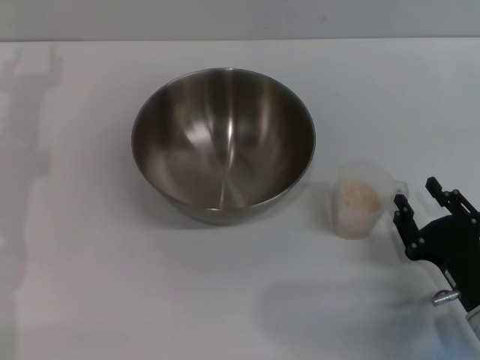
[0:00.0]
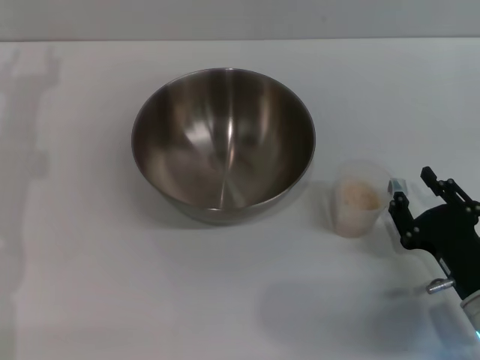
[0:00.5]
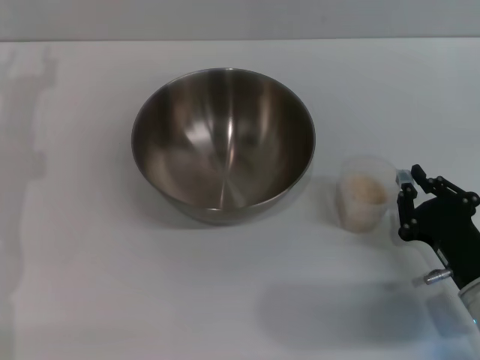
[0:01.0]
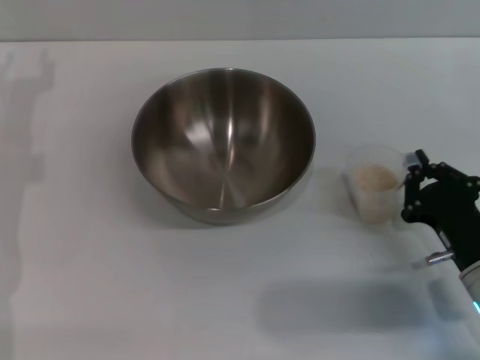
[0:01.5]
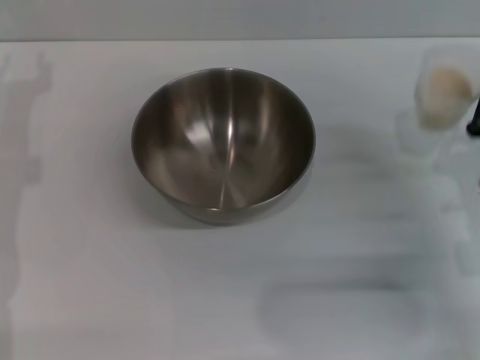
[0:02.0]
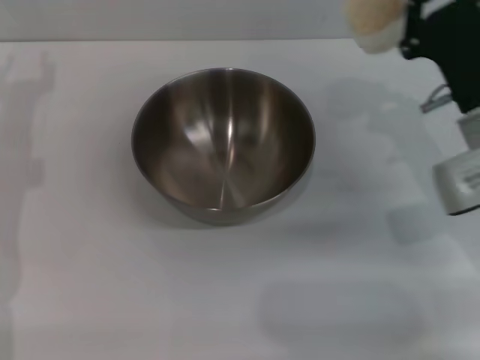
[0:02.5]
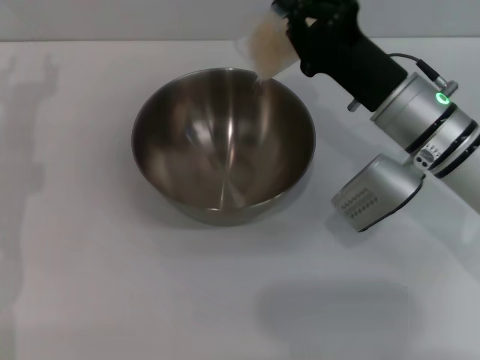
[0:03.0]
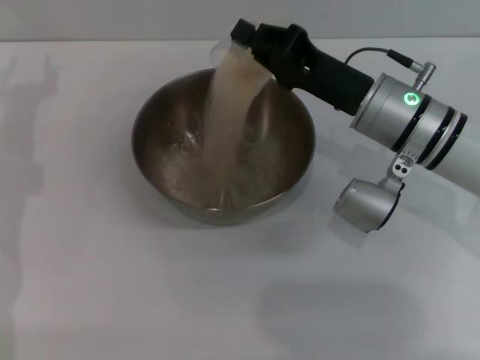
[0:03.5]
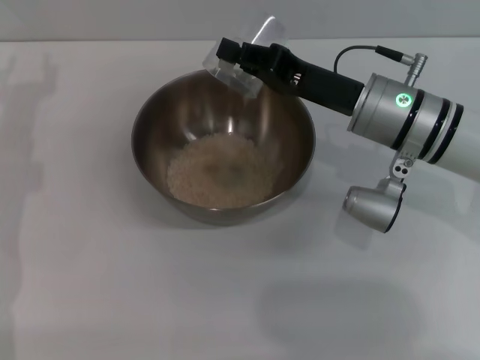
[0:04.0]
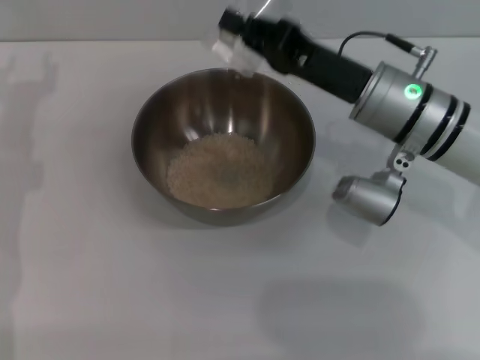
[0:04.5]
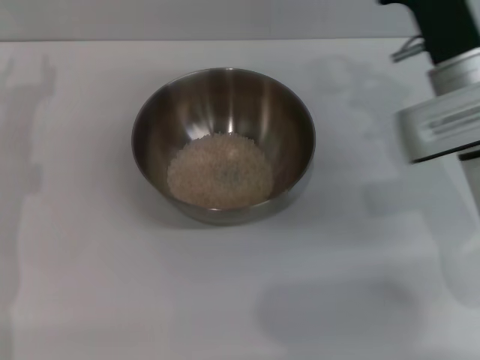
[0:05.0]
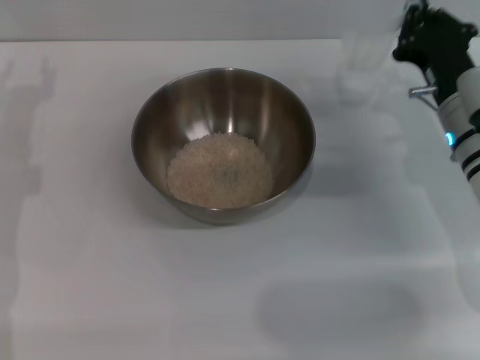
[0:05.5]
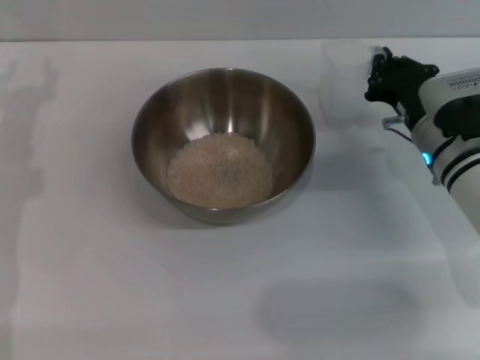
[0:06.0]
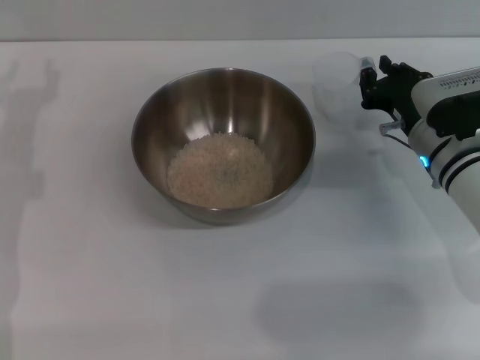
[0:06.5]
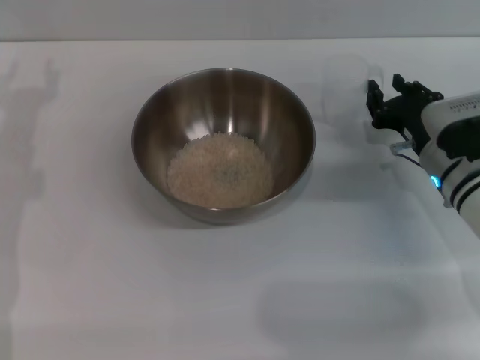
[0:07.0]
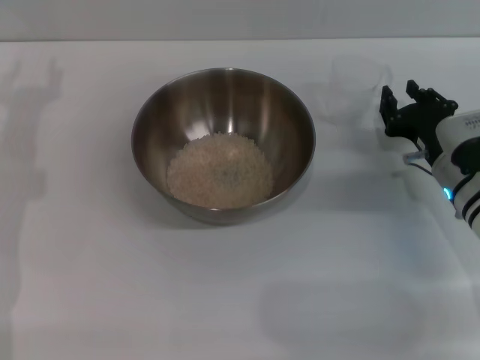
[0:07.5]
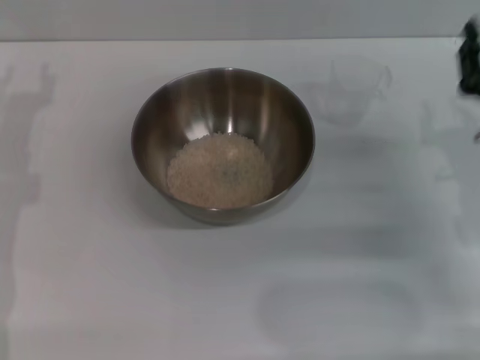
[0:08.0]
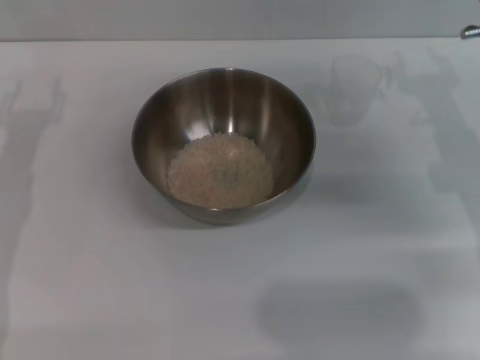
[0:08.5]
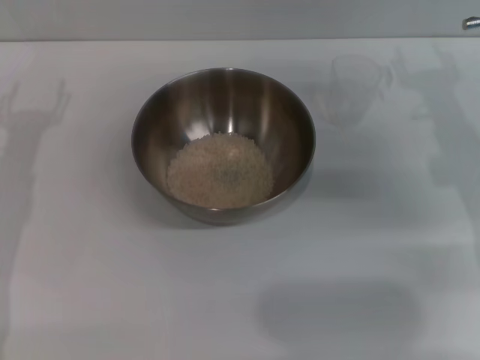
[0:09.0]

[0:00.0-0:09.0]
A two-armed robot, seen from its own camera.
Task of the whole recording: Place the bowl in the middle of the table with one hand and pour the rice from the grain cup into it with the other hand.
Step, 0:00.0 to 0:02.0: Pick up the cup with rice in it with the right gripper.
Step, 0:02.5 to 0:04.5: Pour the rice from the cup into the bowl with the right gripper.
Step, 0:05.0 to 0:07.5: Place the cup on the table with the right gripper.
0:00.0 to 0:02.0: The right gripper shifts roughly 10 cm forward and upward, and closes.
0:02.0 to 0:04.5: The right gripper shifts roughly 15 cm to the left, forward and upward.
0:04.5 to 0:07.0: The right gripper goes approximately 10 cm downward and to the right, and opens its fingers.
0:07.0 to 0:09.0: The right gripper travels upward by some 10 cm, and opens up.

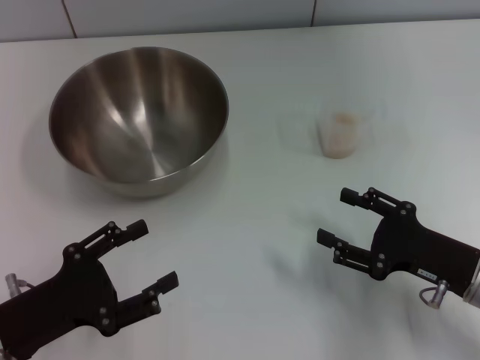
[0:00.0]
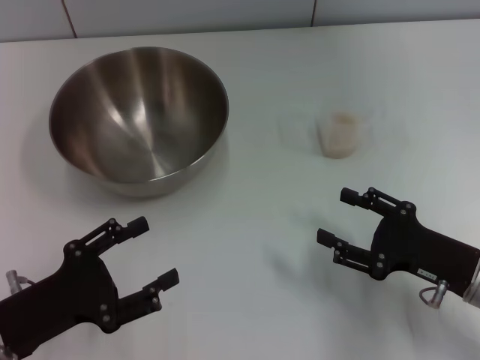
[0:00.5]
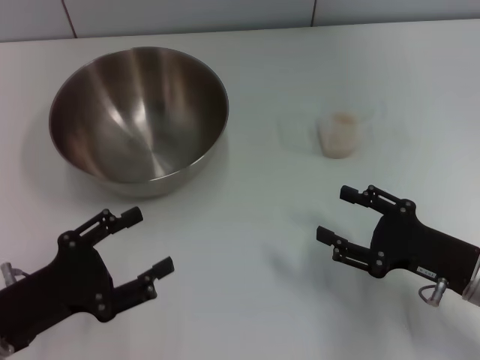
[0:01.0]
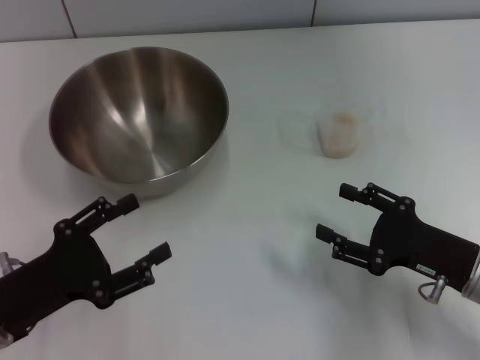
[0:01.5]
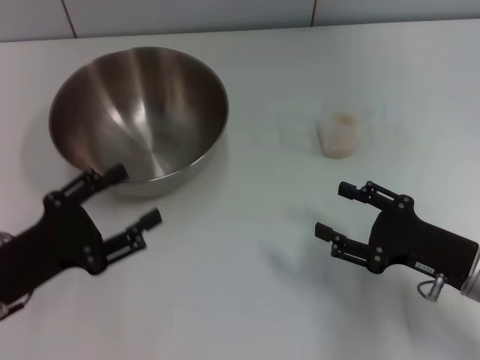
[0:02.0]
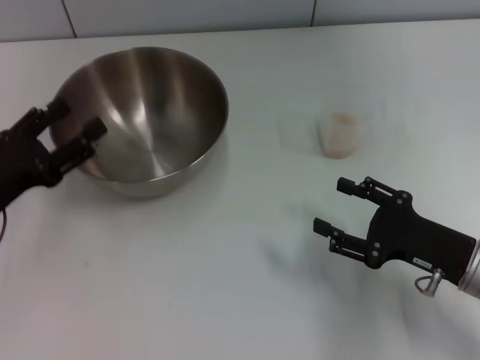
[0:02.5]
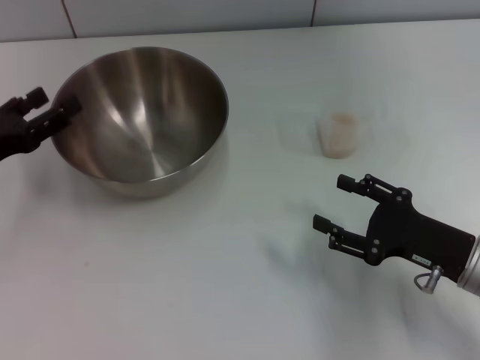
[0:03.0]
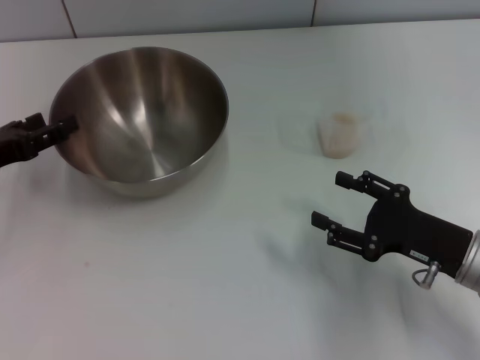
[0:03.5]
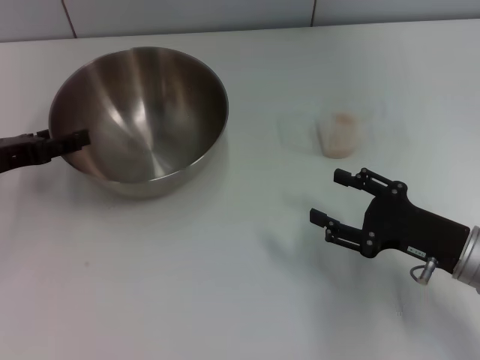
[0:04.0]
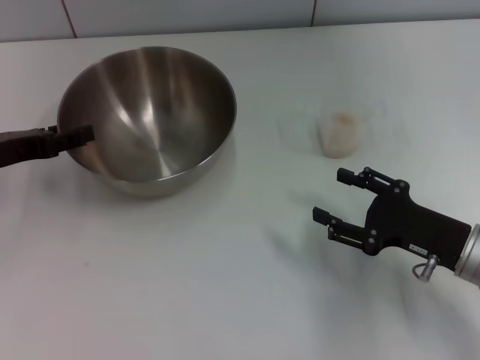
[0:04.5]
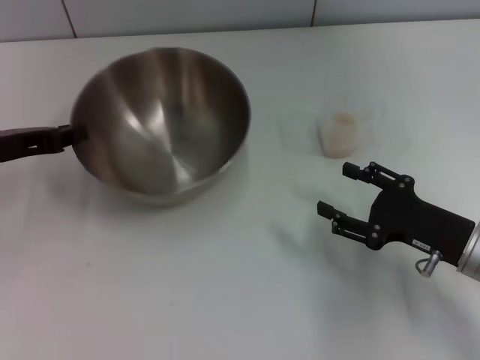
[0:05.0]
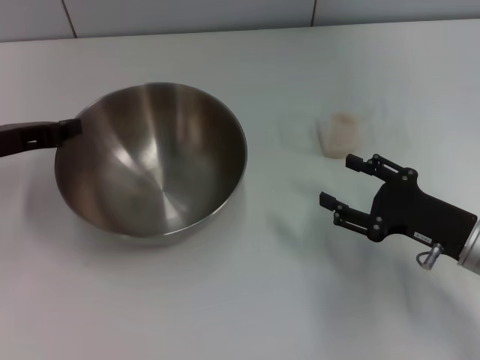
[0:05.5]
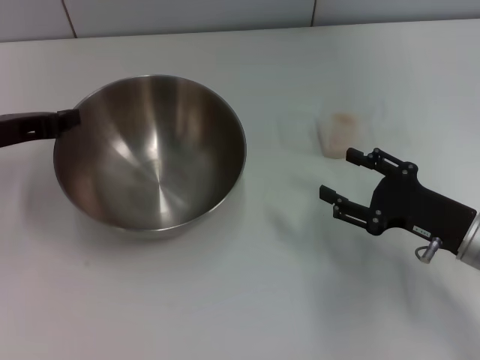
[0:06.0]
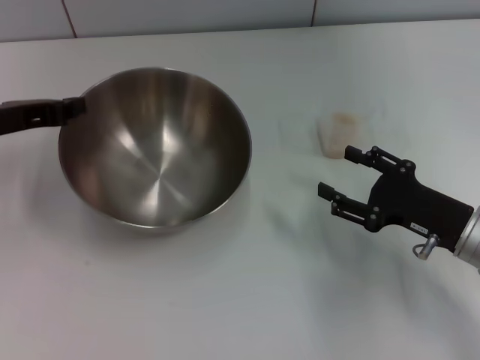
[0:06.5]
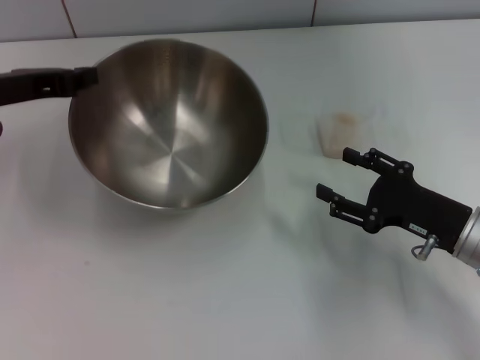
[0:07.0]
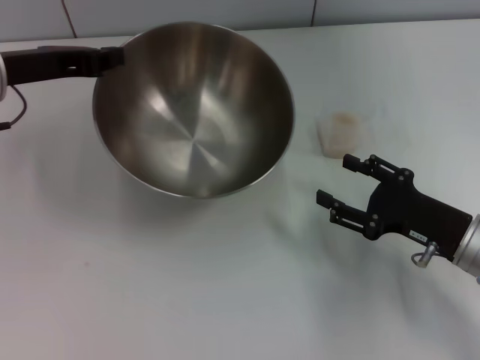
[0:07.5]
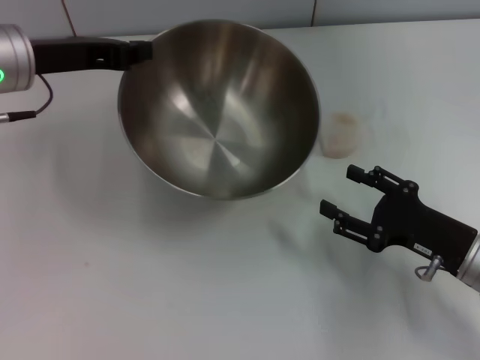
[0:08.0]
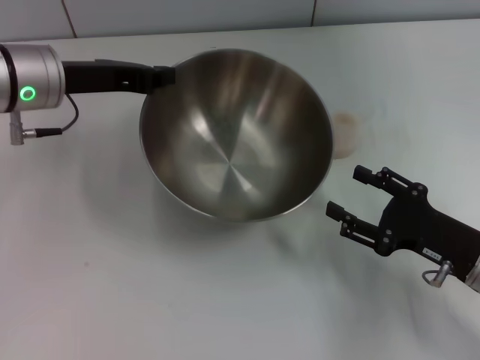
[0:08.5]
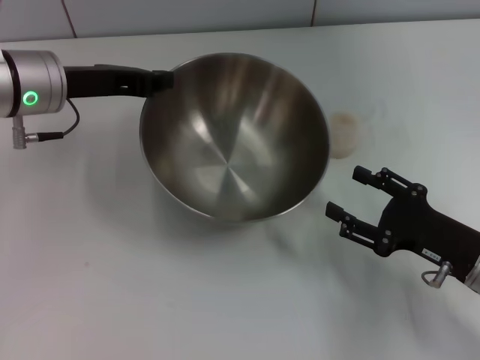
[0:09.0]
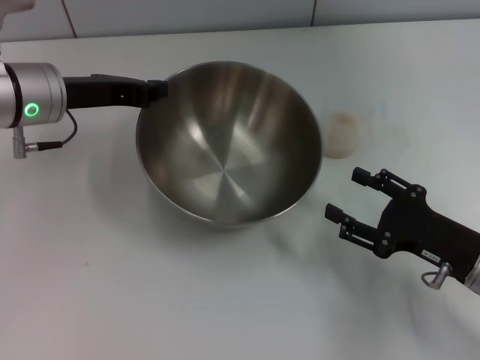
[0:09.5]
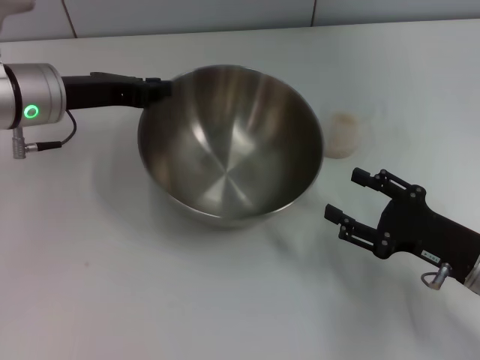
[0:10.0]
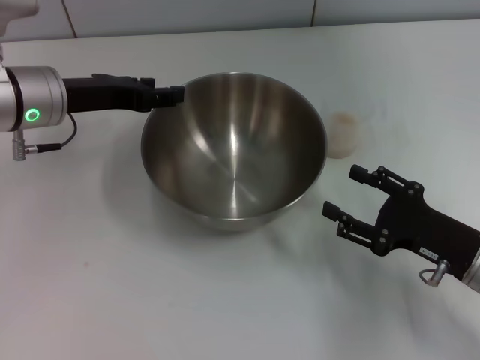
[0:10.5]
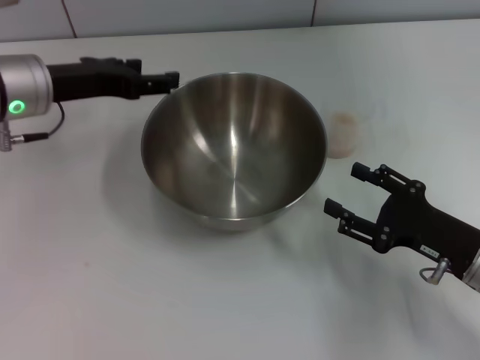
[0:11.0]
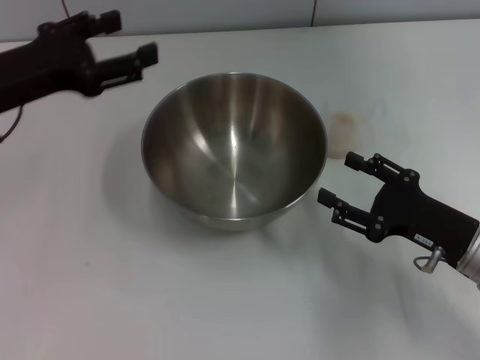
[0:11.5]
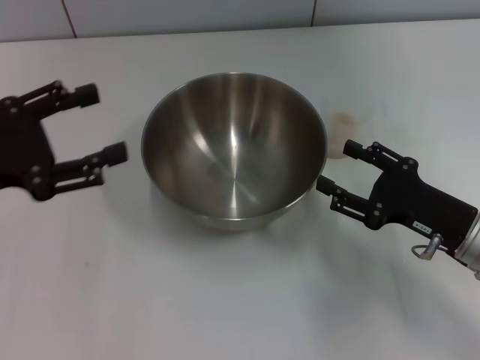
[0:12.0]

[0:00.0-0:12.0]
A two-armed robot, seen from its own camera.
Task of the whole recording: Place the bowl in the middle of the table with one hand and pour the rice from the grain cup into it with the other hand.
Step, 0:00.0 to 0:05.0: Pick up the bowl with the left gripper.
Step, 0:06.0 to 0:11.0: Place the bowl in the center of view with the left gripper.
0:00.0 to 0:02.0: The grippers make only small movements.
0:02.0 to 0:04.0: The left gripper heads forward, covering some 10 cm.
0:04.0 to 0:06.0: The left gripper closes.
0:06.0 to 0:08.0: The left gripper is displaced to the right and upward by about 10 cm.
0:10.0 to 0:12.0: The left gripper shifts roughly 15 cm backward and to the left, and opens up.

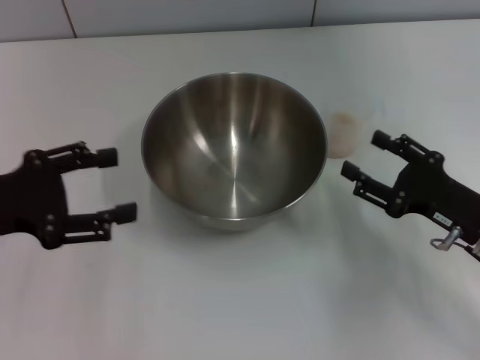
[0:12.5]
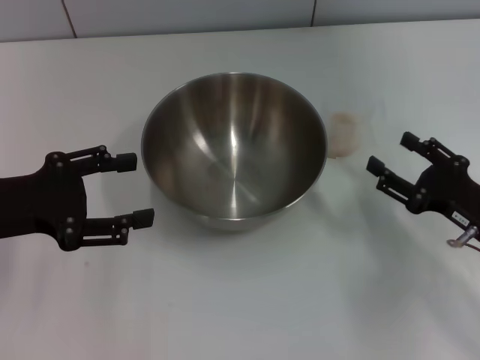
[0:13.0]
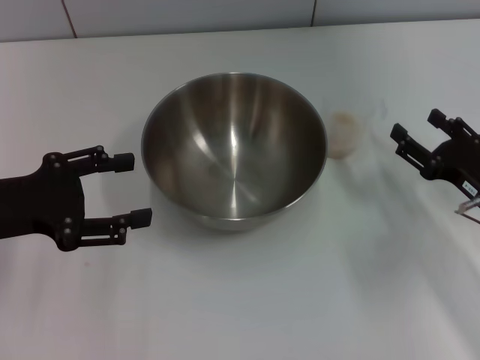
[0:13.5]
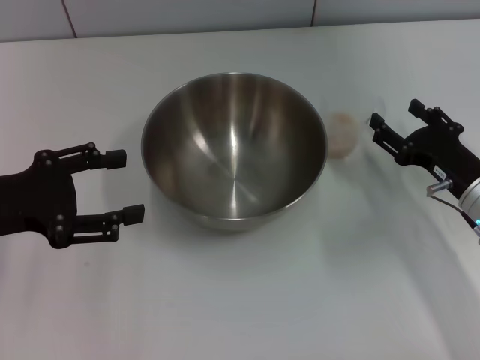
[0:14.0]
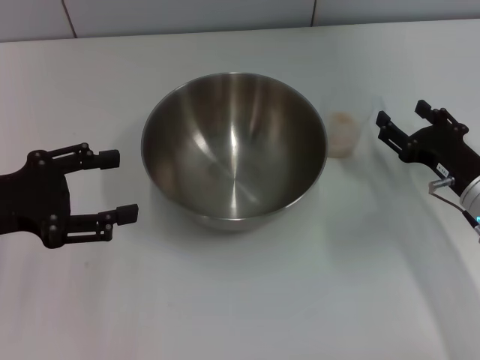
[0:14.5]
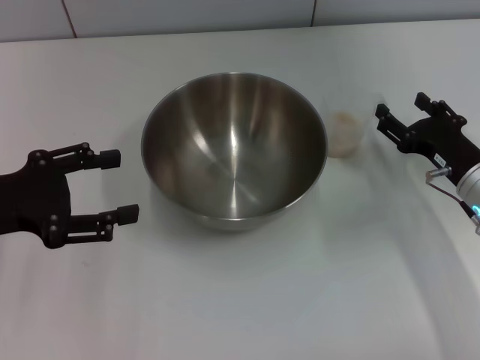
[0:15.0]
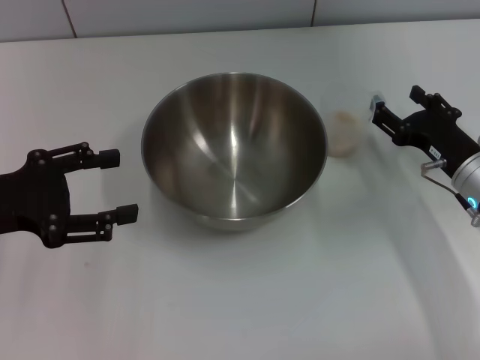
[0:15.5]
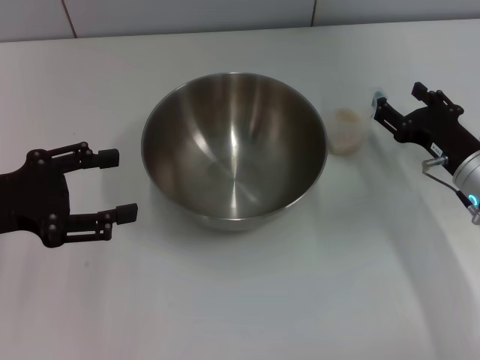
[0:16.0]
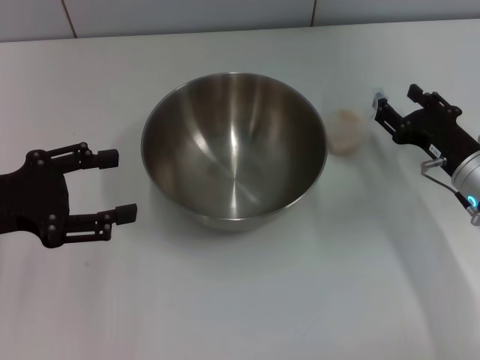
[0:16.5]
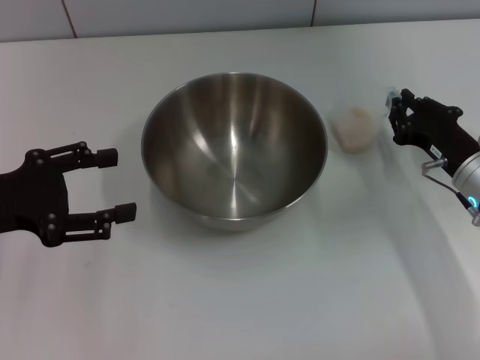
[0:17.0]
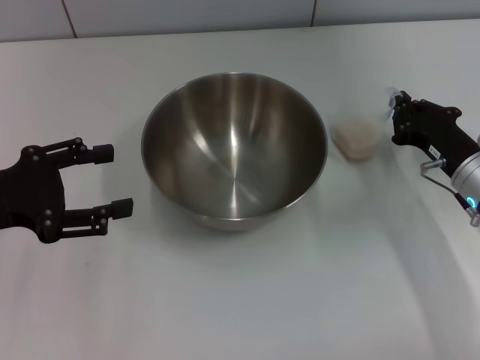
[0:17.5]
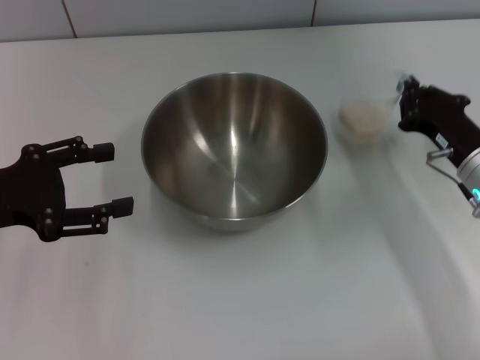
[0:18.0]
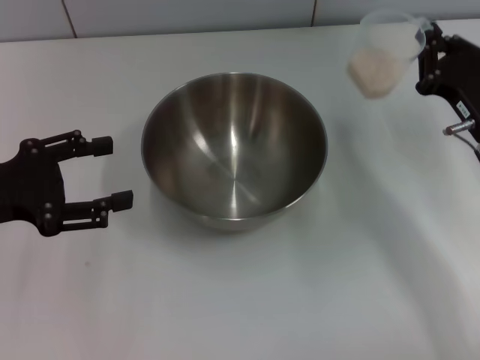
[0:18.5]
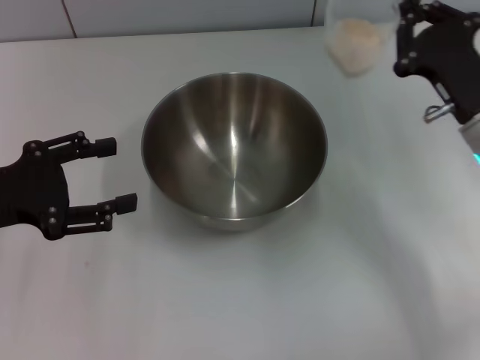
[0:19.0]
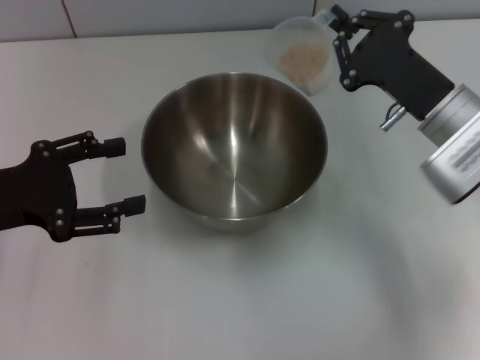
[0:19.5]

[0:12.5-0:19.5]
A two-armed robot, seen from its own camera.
Task of the whole recording: Place the bowl in the middle of the table with one hand and pour the rice from the grain cup into it with the other hand.
Step, 0:12.5 to 0:18.0: Pick up the cup with rice in it with the right gripper.
0:12.5 to 0:14.5: The right gripper moves some 5 cm.
0:14.5 to 0:16.0: The grippers make only small movements.
0:16.0 to 0:17.5: The right gripper closes.
0:17.5 to 0:19.5: The right gripper shifts roughly 5 cm upward.
